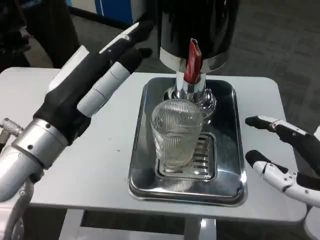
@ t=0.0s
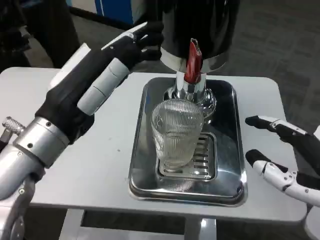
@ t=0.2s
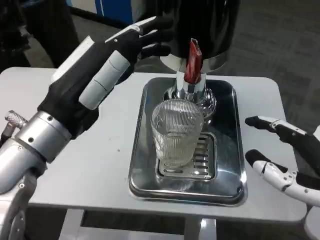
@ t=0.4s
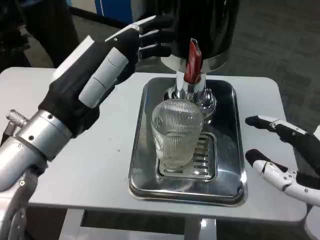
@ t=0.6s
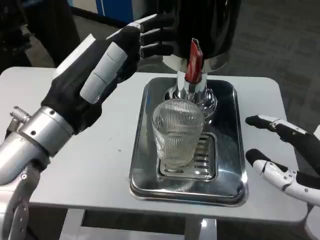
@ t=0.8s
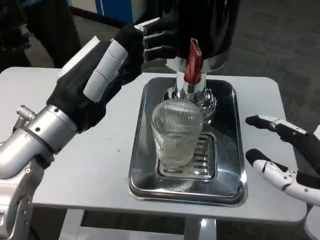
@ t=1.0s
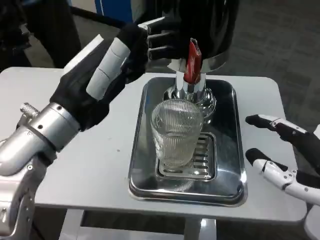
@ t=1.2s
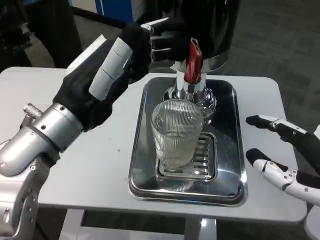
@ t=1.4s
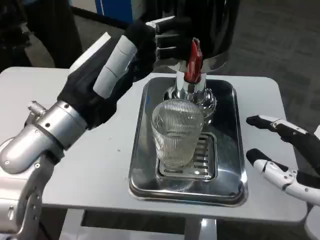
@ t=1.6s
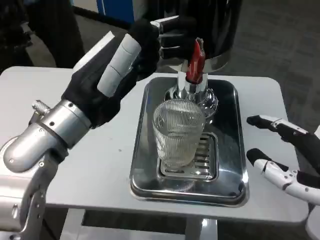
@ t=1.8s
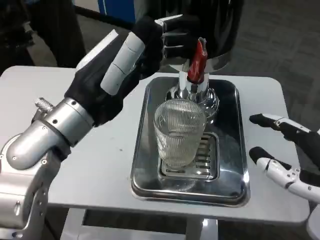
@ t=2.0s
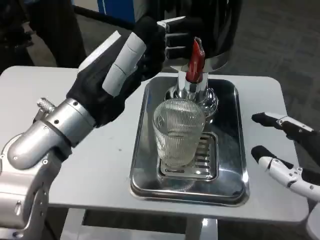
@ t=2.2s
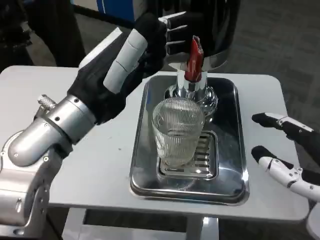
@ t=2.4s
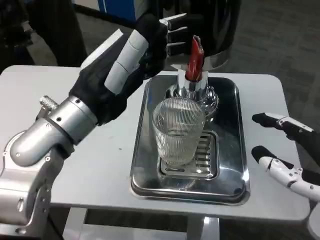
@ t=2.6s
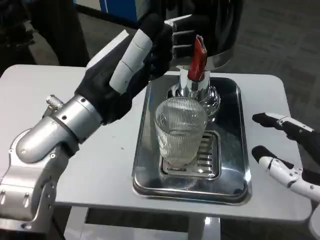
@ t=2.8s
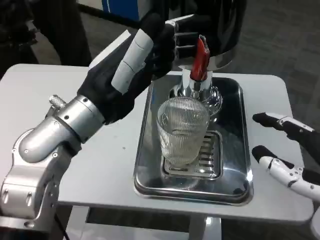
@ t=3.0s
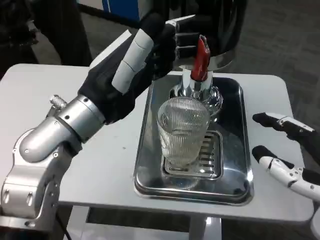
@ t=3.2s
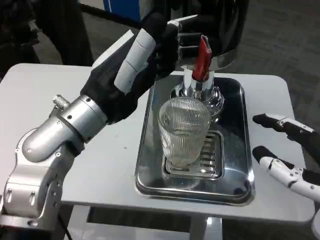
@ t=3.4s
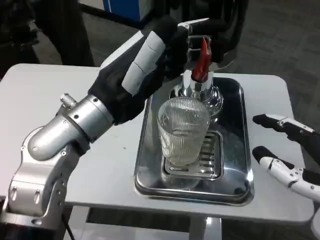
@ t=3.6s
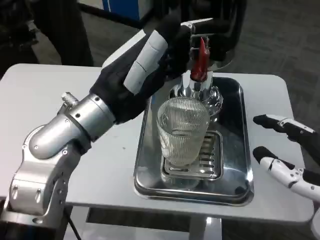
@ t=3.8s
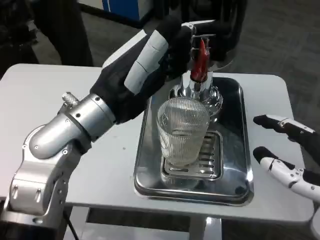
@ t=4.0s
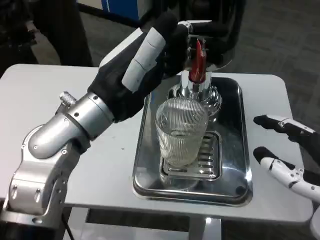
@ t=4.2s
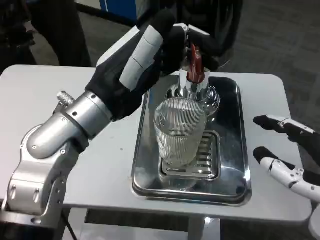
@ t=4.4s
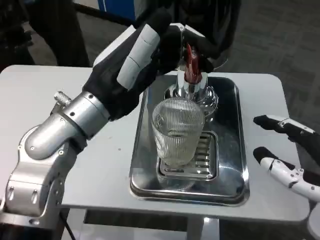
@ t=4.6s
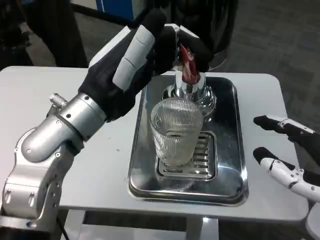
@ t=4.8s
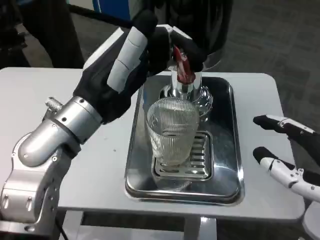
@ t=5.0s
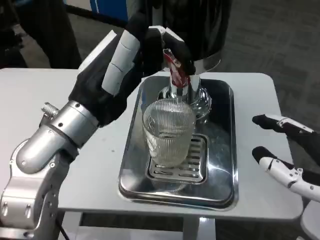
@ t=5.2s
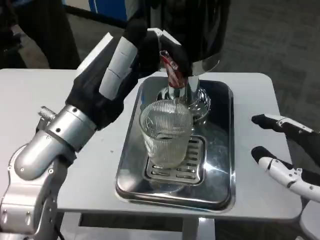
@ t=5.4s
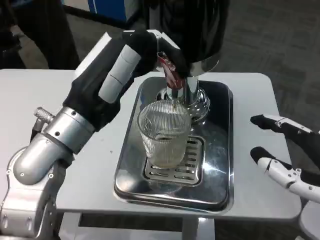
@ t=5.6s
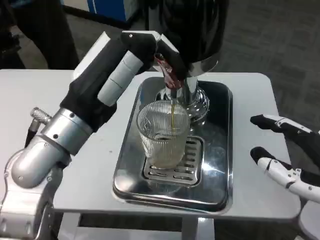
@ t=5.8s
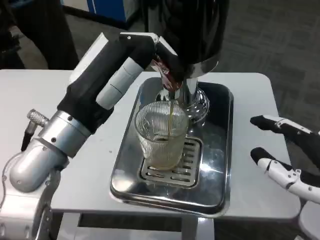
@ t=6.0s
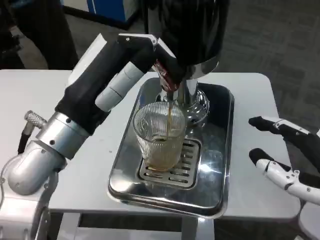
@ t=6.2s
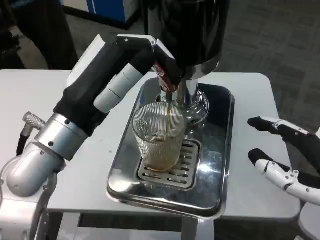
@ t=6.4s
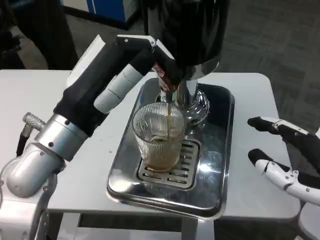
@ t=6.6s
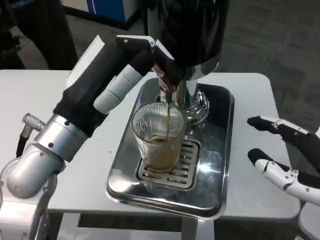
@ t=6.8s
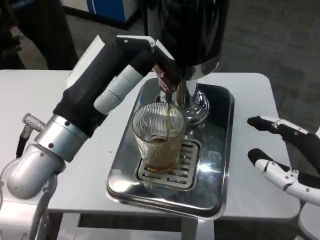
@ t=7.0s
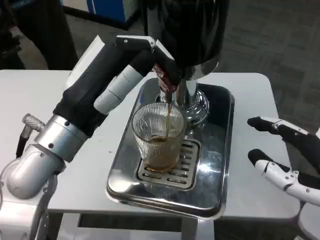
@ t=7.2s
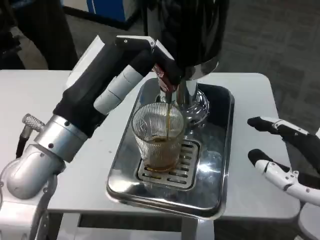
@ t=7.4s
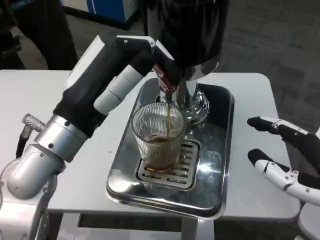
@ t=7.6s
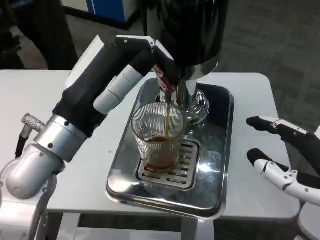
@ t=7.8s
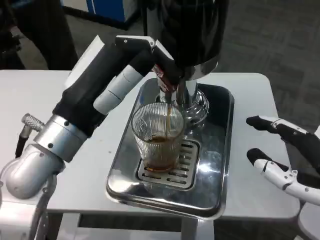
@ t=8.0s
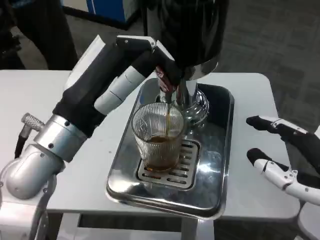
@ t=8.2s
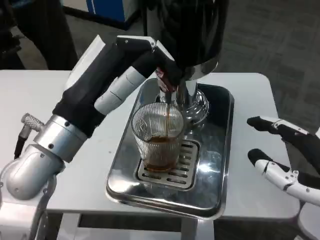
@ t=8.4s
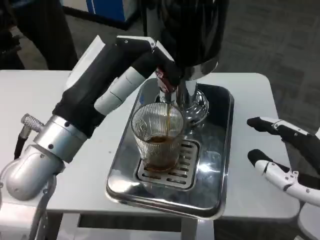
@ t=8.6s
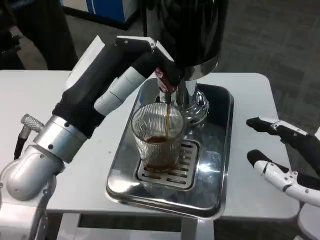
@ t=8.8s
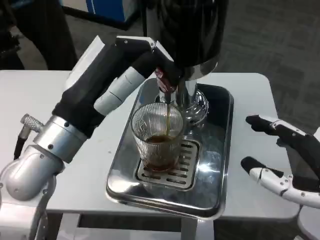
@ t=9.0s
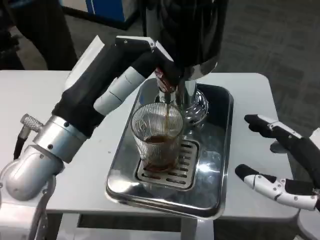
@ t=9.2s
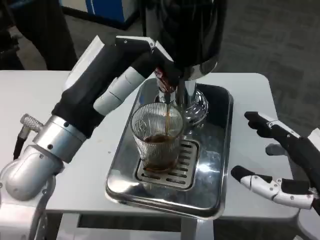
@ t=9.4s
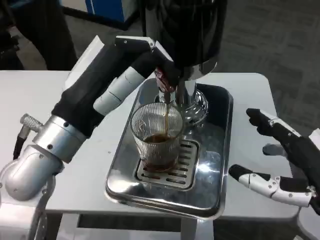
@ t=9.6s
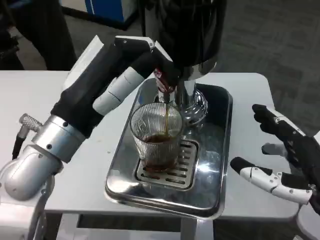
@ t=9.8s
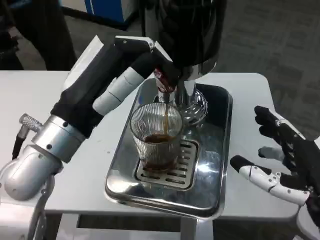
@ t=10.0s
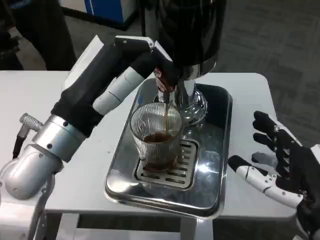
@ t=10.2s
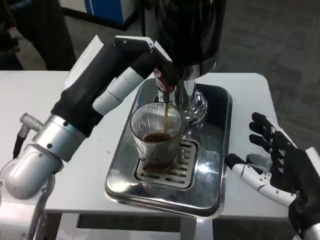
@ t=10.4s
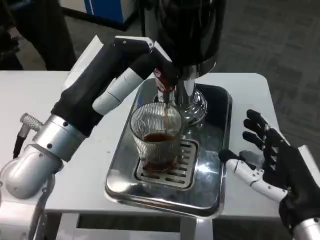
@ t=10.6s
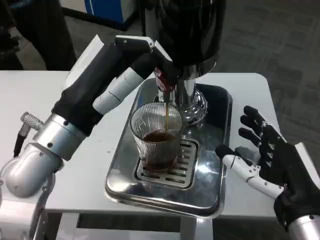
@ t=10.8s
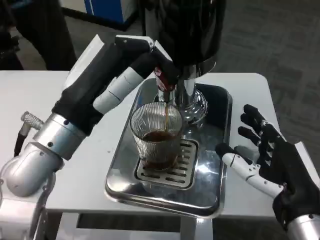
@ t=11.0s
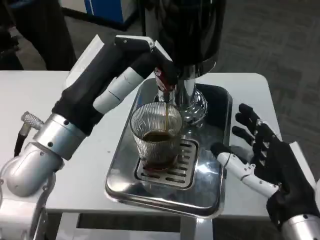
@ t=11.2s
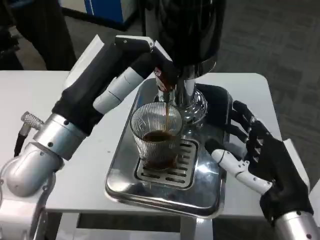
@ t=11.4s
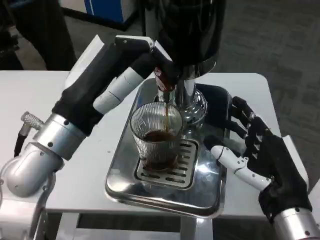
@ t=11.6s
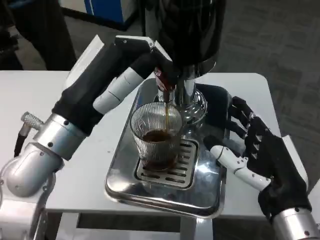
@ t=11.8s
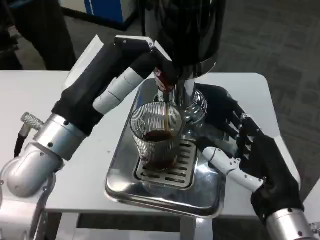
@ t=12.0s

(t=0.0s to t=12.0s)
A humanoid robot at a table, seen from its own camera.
Task of the whole recording: Grasp the cup under the faucet to collect the drink, then remove the cup.
t=0.0s - t=1.6s: The hands make only small movements.
t=6.0s - t=9.0s: Both hands stay put.
t=9.0s - t=10.4s: The right hand shifts about 5 cm downward.
t=10.4s - t=12.0s: The hands make only small movements.

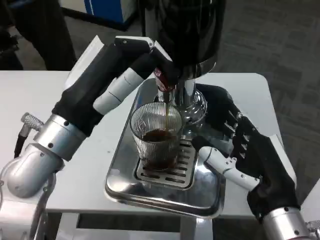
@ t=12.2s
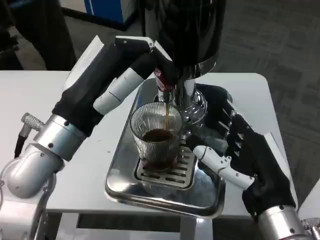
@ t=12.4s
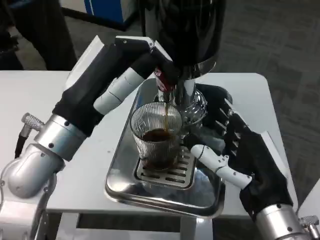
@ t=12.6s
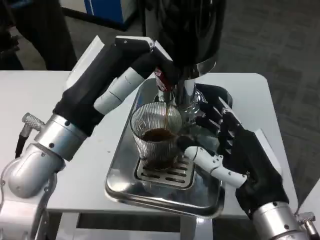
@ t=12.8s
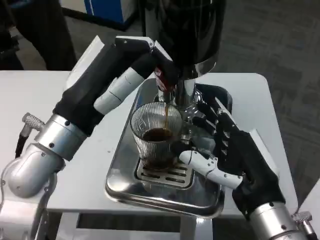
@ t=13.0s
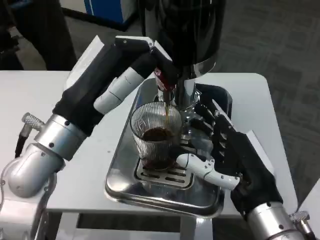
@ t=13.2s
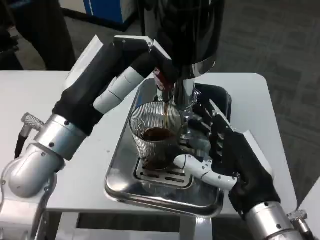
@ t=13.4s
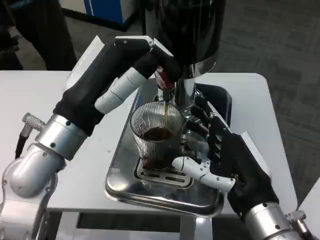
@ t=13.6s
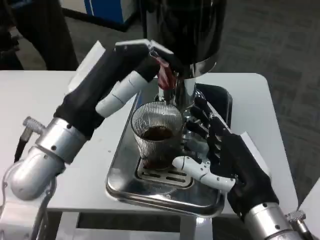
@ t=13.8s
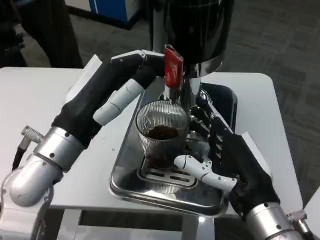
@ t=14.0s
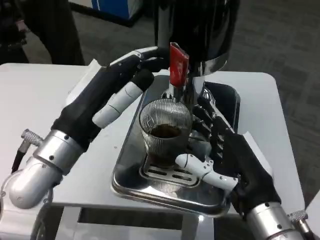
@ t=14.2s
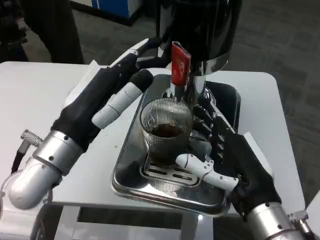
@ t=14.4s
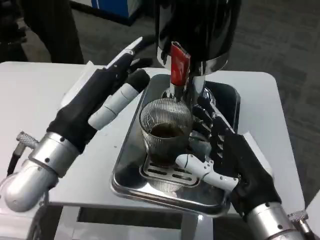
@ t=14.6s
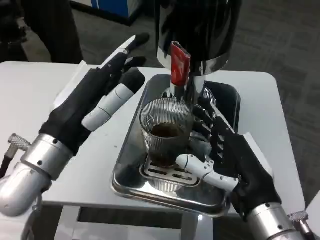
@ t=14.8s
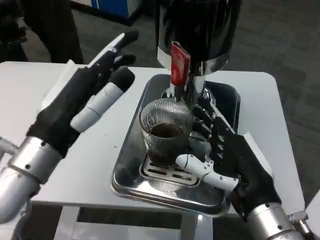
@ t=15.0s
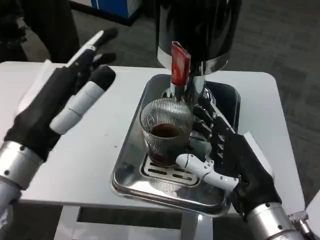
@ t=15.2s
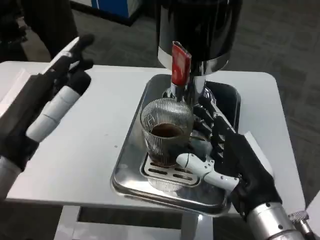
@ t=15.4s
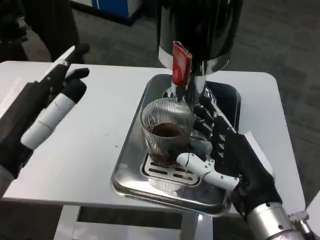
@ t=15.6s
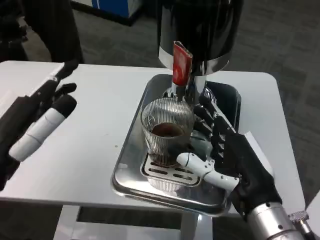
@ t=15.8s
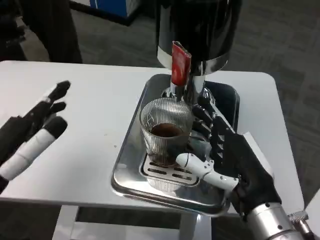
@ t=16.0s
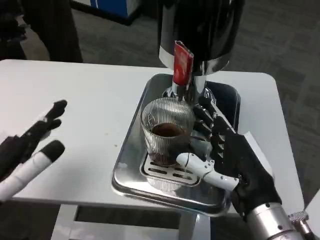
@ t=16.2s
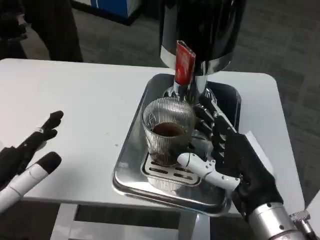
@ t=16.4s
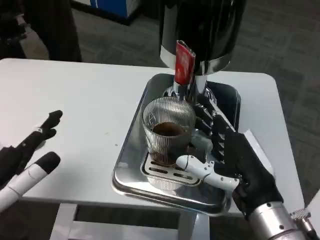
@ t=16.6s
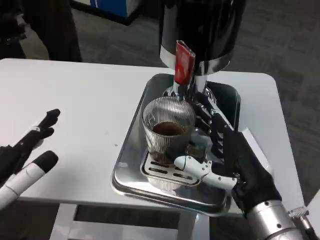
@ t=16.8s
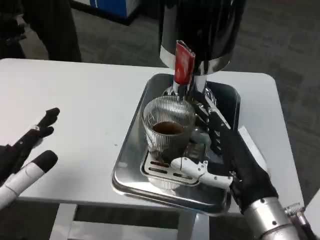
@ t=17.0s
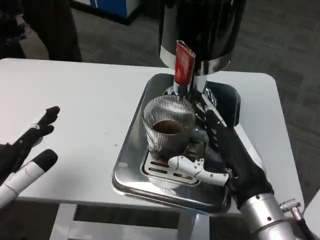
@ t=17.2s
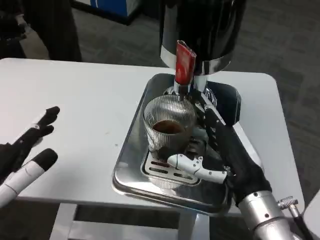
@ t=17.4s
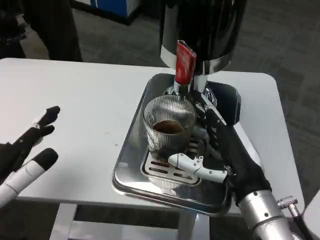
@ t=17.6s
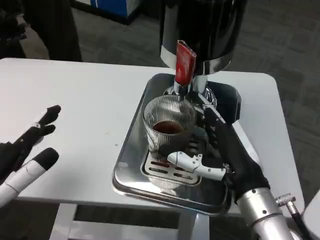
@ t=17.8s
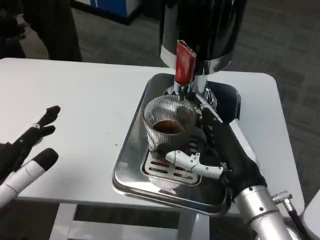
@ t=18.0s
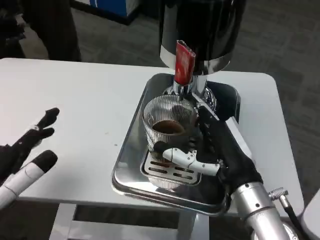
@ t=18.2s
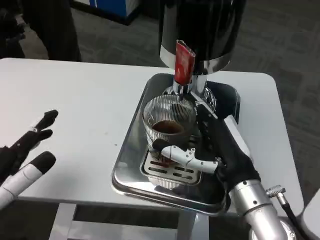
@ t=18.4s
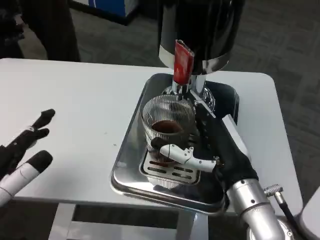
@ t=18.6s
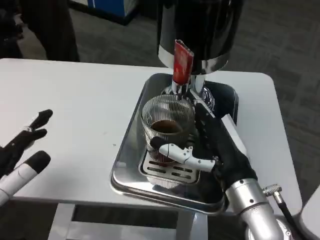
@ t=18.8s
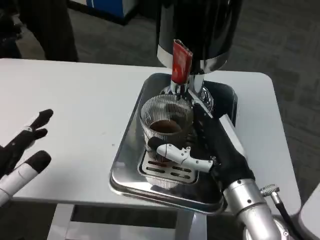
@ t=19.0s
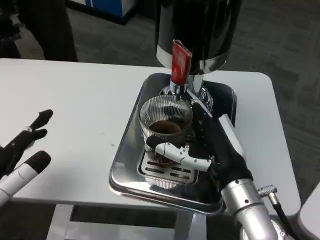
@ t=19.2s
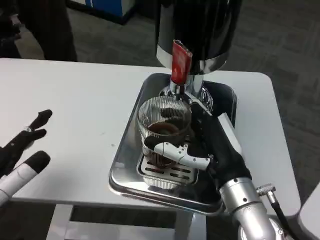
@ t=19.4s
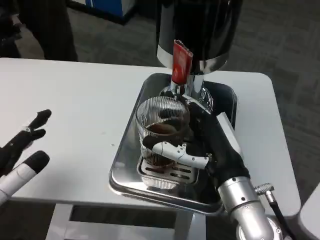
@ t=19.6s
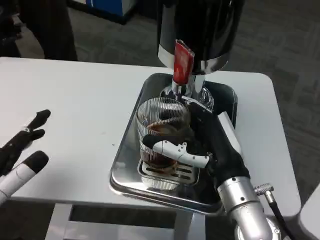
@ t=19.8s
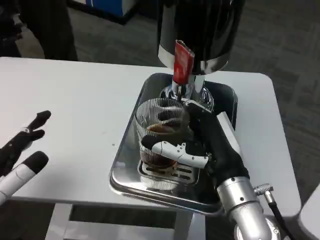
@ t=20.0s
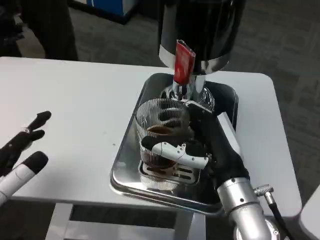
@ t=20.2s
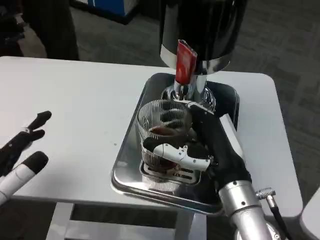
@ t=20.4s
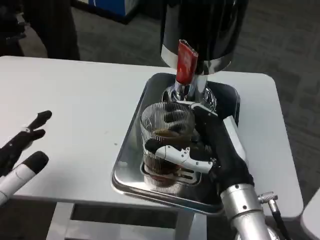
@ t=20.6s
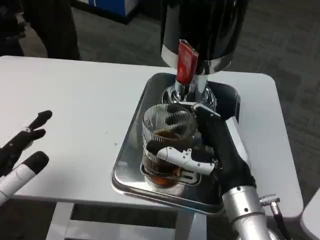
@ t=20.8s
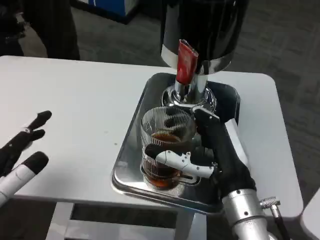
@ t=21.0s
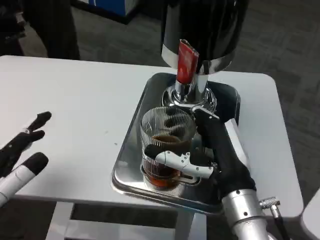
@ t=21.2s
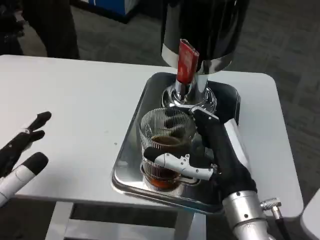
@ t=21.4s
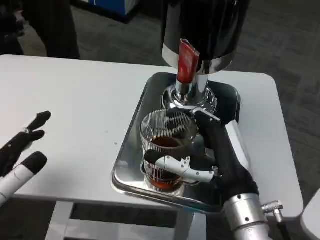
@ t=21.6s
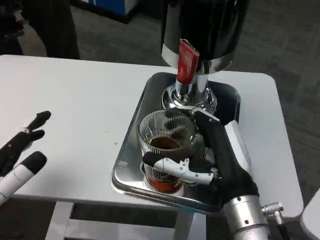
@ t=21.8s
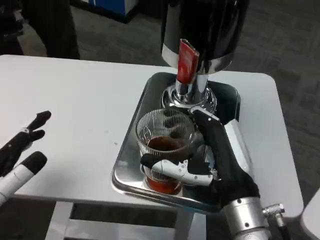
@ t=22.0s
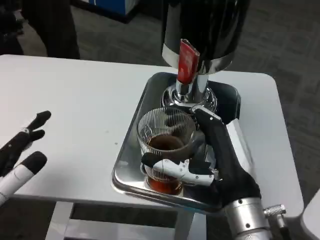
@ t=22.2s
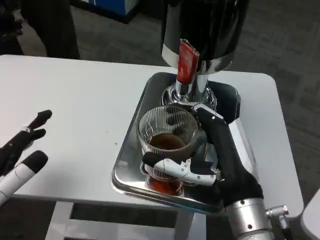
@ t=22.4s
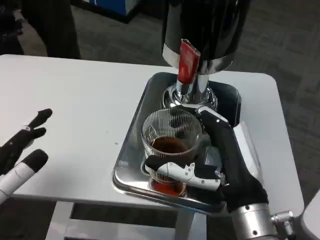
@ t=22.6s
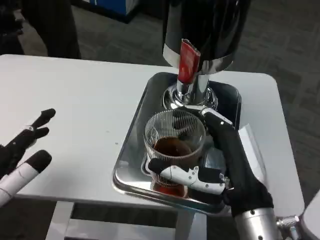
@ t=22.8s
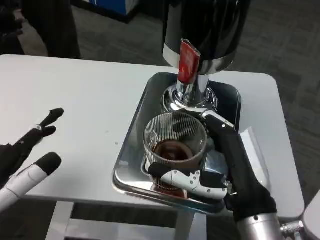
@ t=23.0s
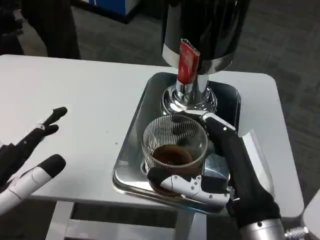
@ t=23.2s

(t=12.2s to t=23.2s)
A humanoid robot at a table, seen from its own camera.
Task of the whole recording: Grasp the cup under the faucet to collect the drink, then remove the cup.
t=13.8s - t=15.4s: The left hand travels backward and to the left by approximately 10 cm.
t=15.4s - t=17.0s: The left hand is displaced to the left by roughly 5 cm.
t=17.0s - t=18.4s: There are only small adjustments of the hands.
t=21.6s - t=23.2s: The right hand shifts some 5 cm backward.
